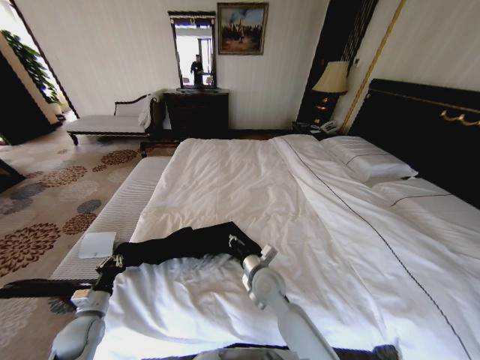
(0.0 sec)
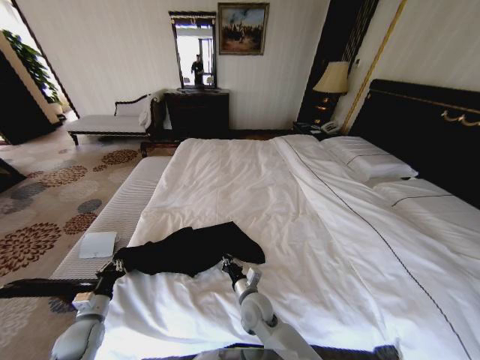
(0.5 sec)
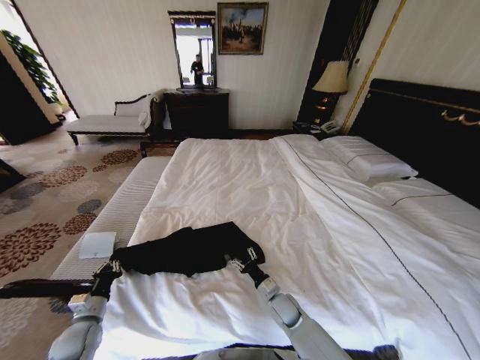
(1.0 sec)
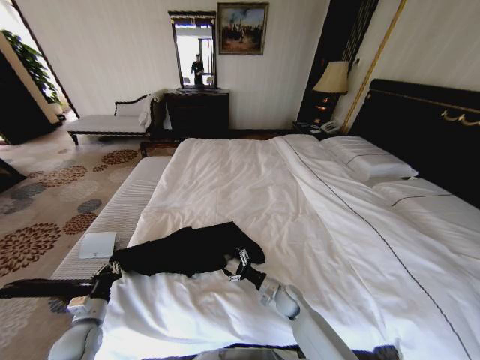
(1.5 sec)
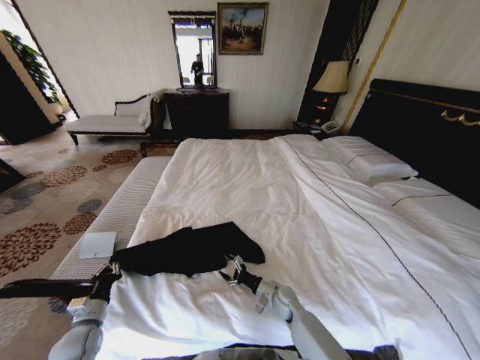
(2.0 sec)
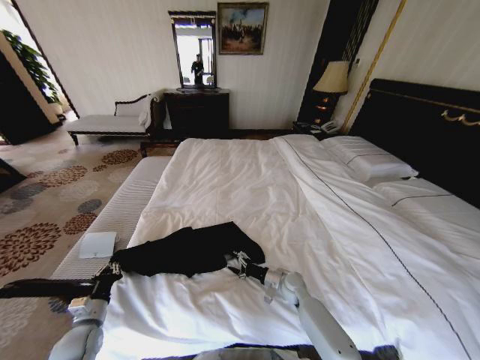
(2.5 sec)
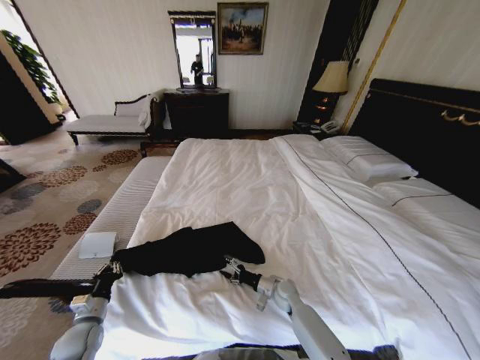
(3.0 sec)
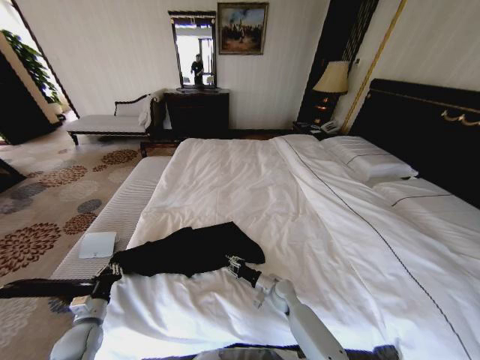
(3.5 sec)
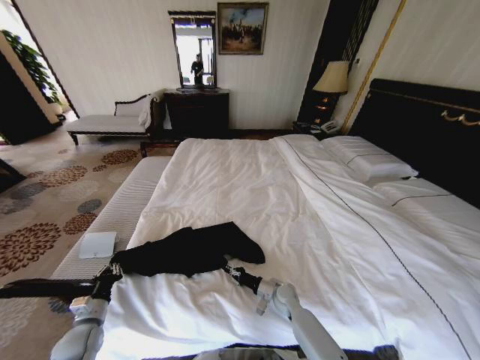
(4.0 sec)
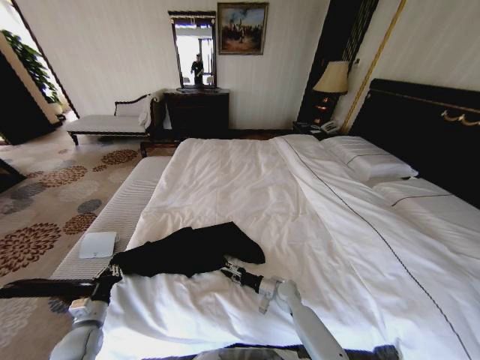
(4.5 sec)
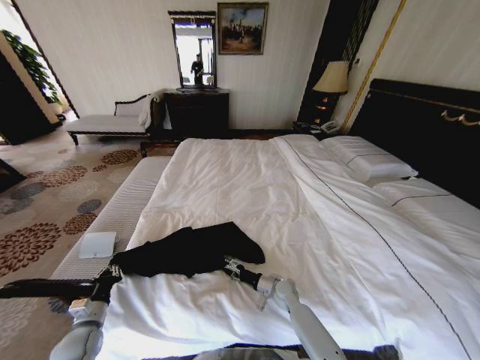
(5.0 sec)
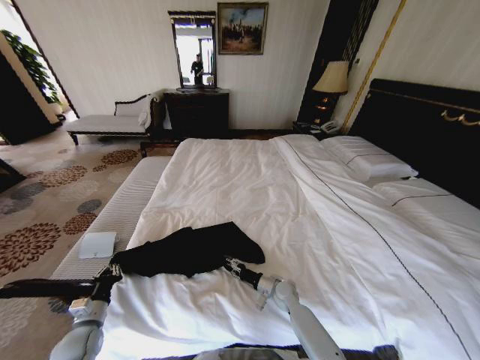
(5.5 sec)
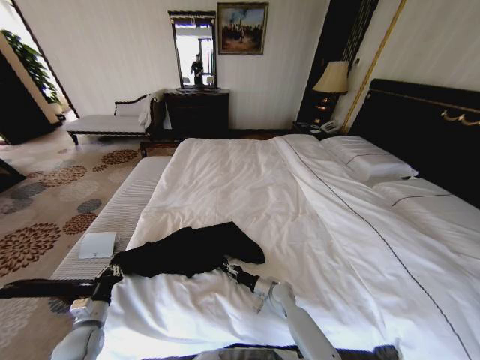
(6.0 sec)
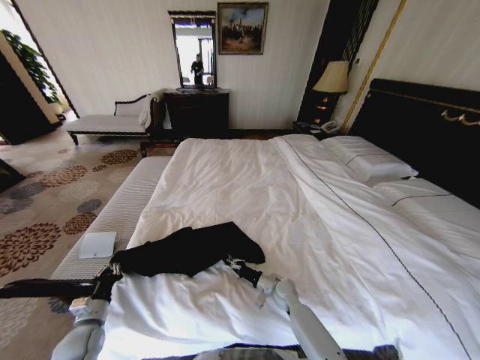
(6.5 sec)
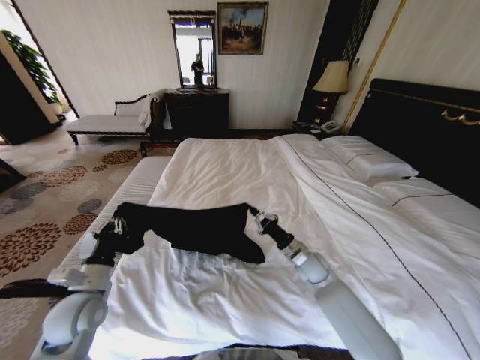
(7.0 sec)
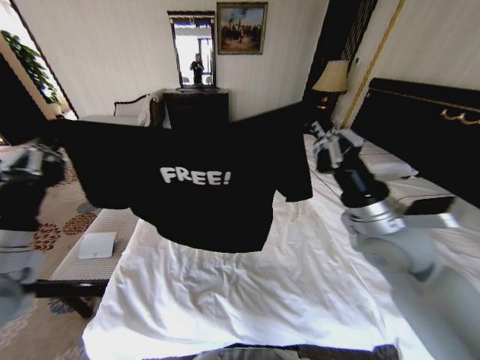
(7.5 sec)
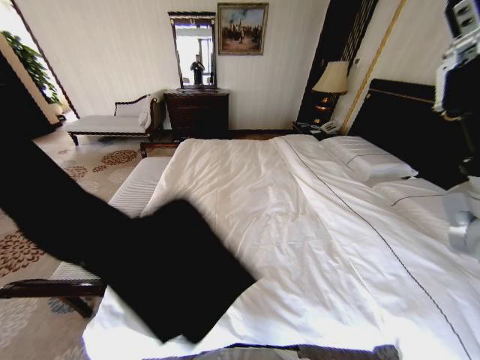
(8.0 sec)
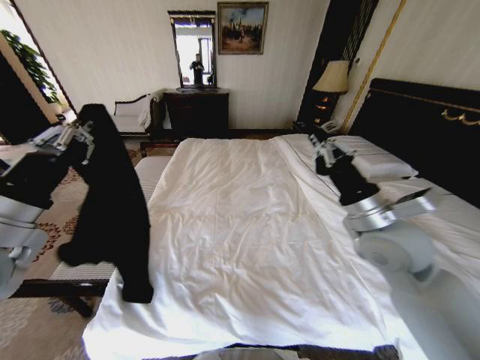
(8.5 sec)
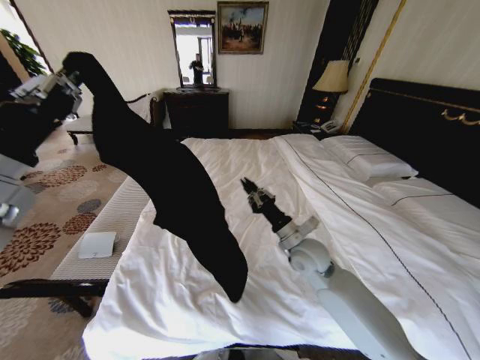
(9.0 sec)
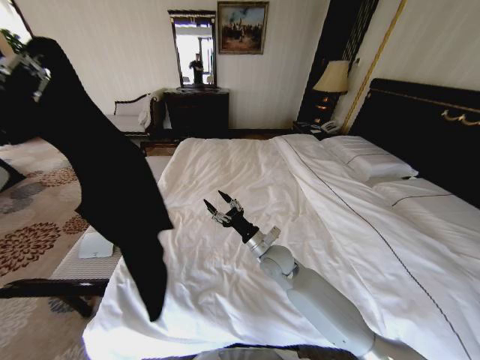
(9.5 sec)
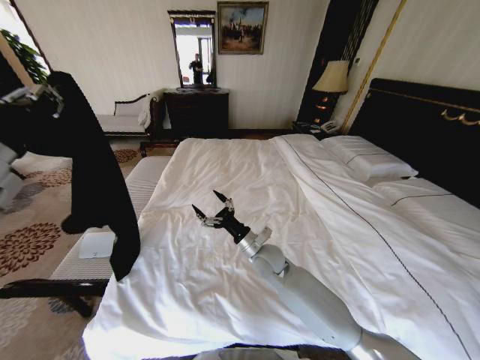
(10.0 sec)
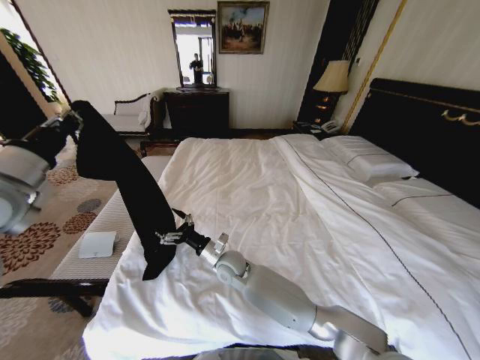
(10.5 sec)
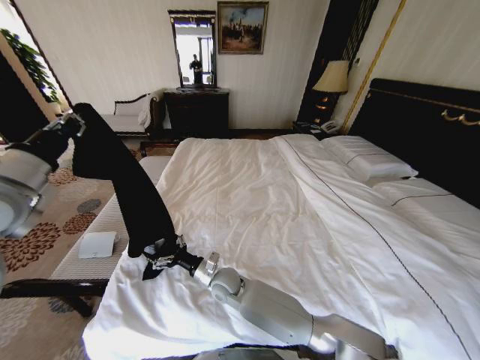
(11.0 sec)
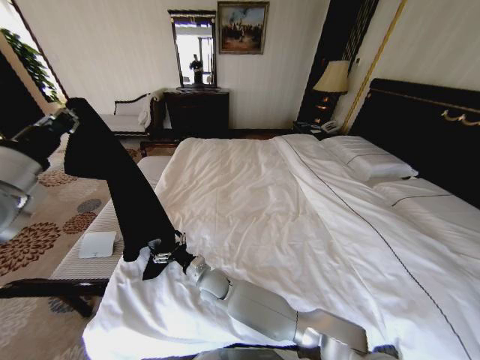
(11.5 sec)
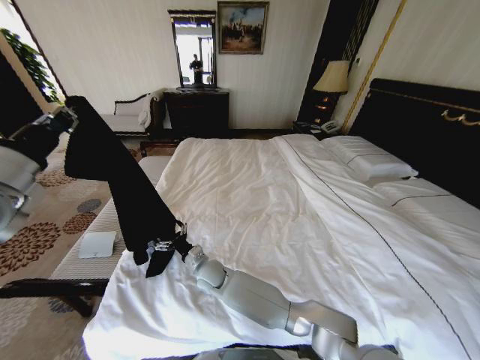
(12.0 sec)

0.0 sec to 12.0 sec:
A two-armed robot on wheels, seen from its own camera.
Task of the whole recording: Fold the clothes on the bed.
0.0 sec to 2.0 sec: The right gripper goes some 20 cm downward and to the right, and opens up.
2.0 sec to 4.0 sec: The right gripper closes its fingers.
4.0 sec to 6.0 sec: The right gripper opens, then closes once more.
6.0 sec to 8.0 sec: Both grippers move upward, some 50 cm.
8.0 sec to 10.0 sec: The left gripper is displaced forward by roughly 15 cm, while the right gripper shifts about 40 cm downward, to the left and forward, and opens.
10.0 sec to 12.0 sec: The right gripper shifts roughly 20 cm to the left and downward.

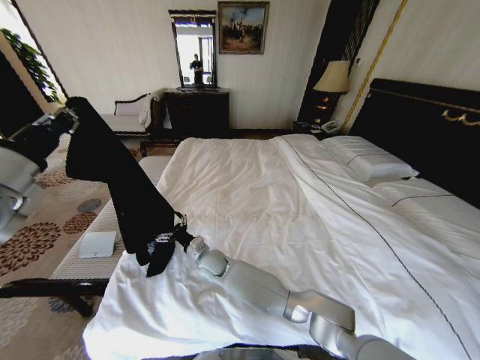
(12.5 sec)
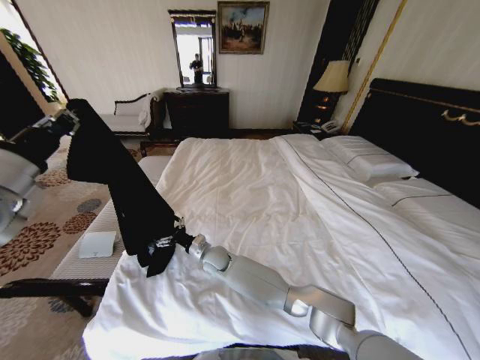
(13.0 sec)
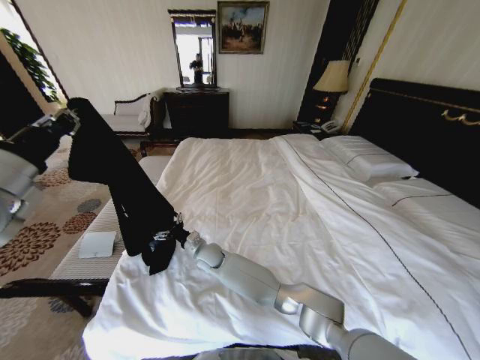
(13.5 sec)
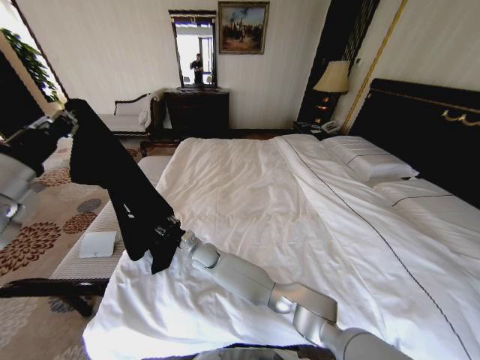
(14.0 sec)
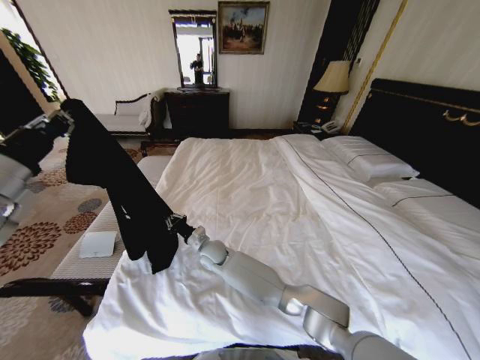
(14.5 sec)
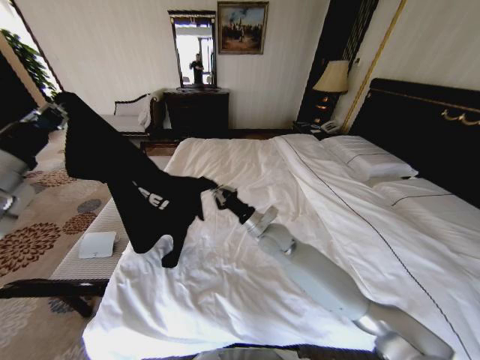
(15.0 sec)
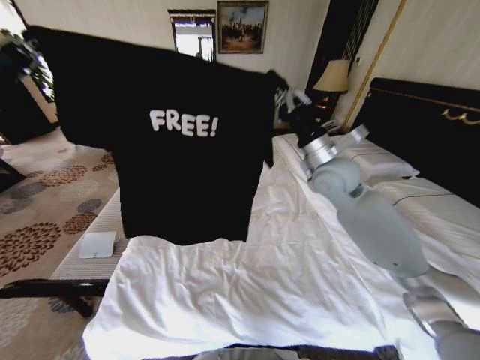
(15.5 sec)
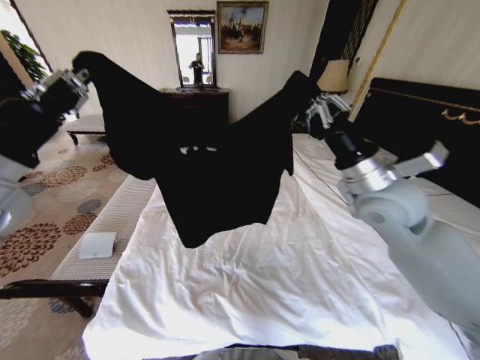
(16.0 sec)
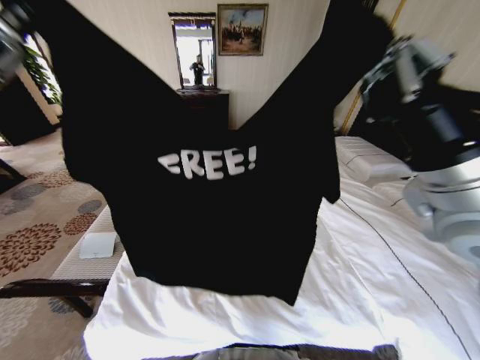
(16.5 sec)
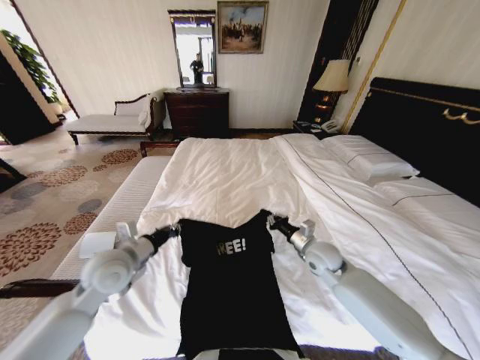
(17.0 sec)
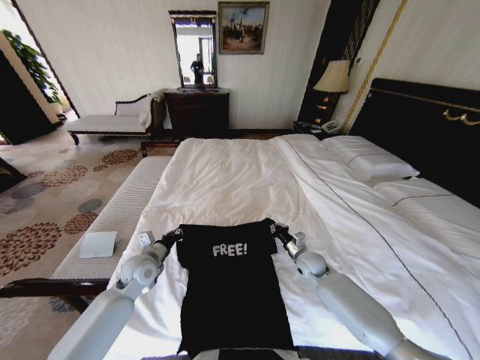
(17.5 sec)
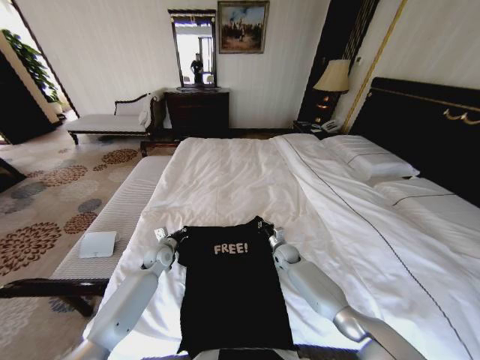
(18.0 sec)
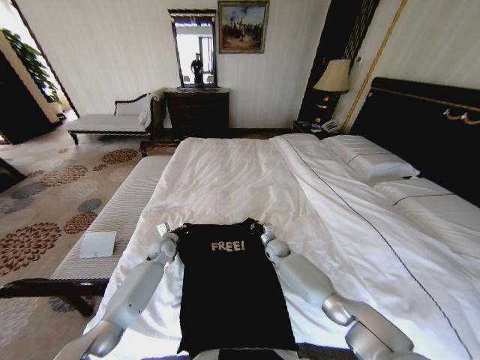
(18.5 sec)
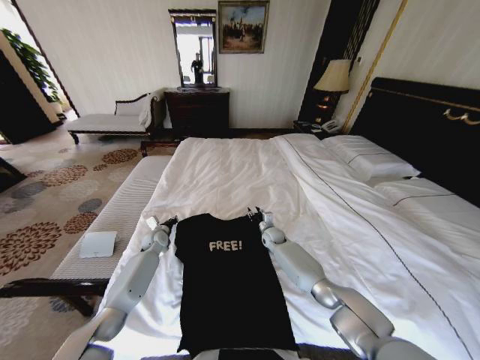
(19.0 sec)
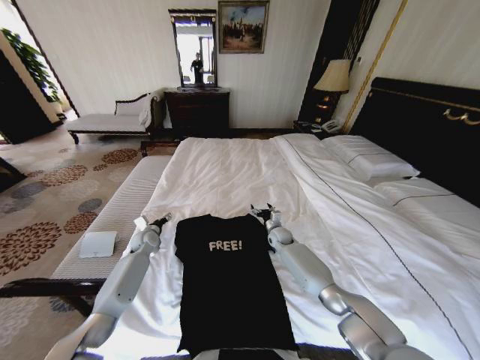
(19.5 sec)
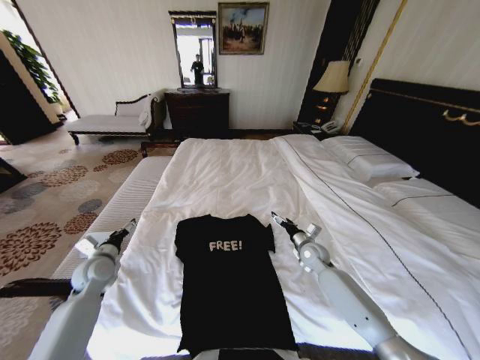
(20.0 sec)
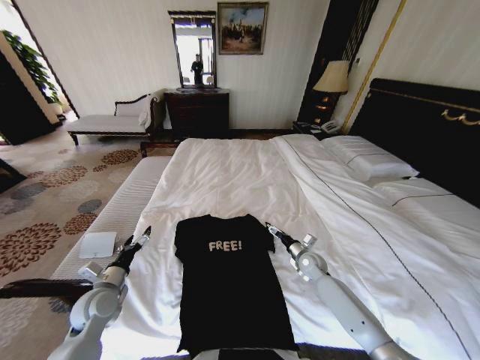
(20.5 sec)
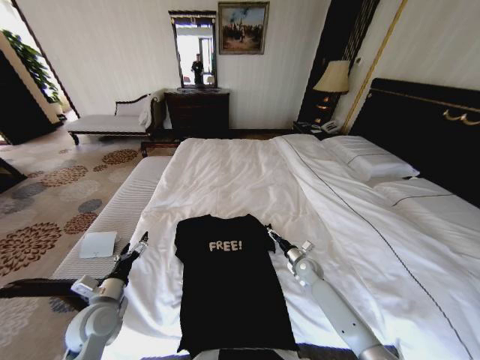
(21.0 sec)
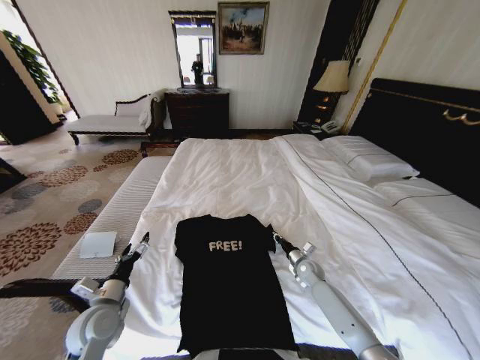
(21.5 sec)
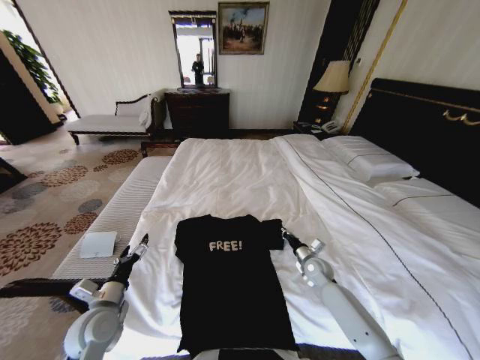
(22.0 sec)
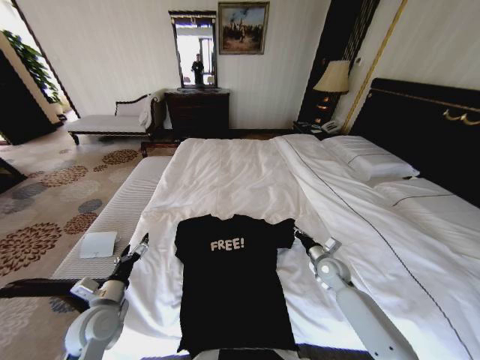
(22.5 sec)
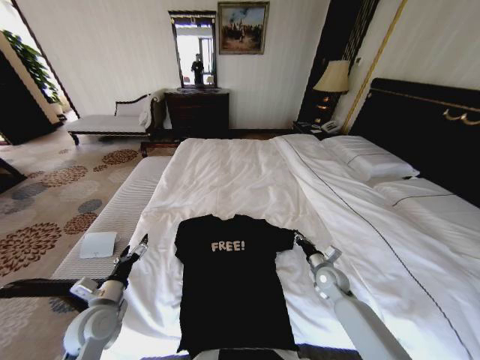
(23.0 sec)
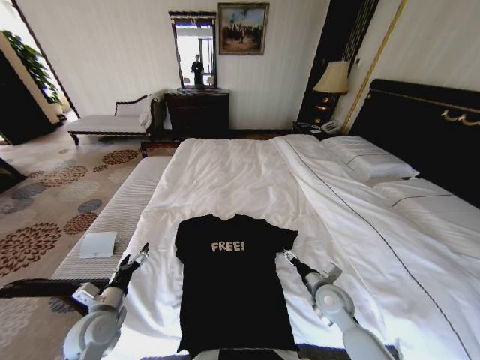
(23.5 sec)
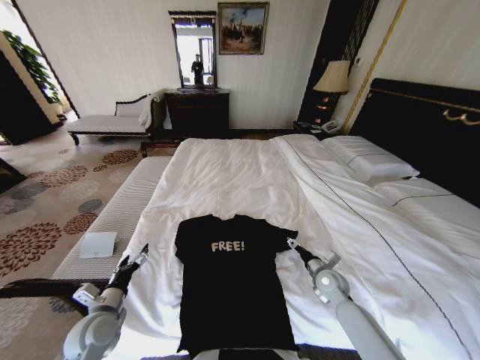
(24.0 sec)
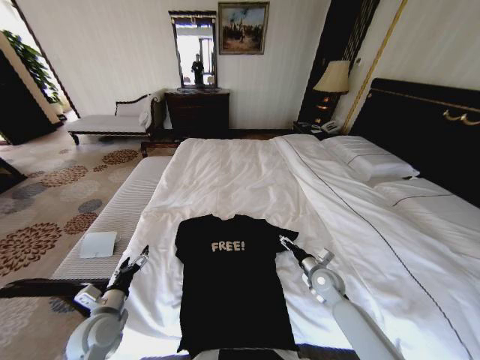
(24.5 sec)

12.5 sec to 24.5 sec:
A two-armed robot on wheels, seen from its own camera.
Task of the whole recording: Fold the clothes on the bed.
12.5 sec to 14.5 sec: The right gripper closes its fingers.
14.5 sec to 16.5 sec: The left gripper is displaced backward, upward and to the right by roughly 15 cm, while the right gripper goes about 60 cm upward, to the right and backward.
16.5 sec to 18.5 sec: Both grippers move downward and forward, some 60 cm.
18.5 sec to 20.5 sec: The right gripper shifts about 15 cm to the right and backward, and opens; the left gripper moves backward and to the left, about 25 cm, and opens up.
20.5 sec to 22.5 sec: The right gripper moves about 5 cm, and closes up, while the left gripper changes place by approximately 5 cm.
22.5 sec to 24.5 sec: The right gripper opens its fingers.

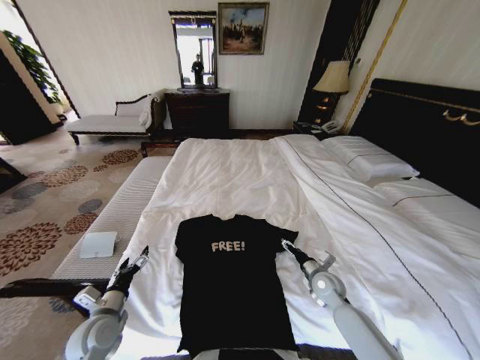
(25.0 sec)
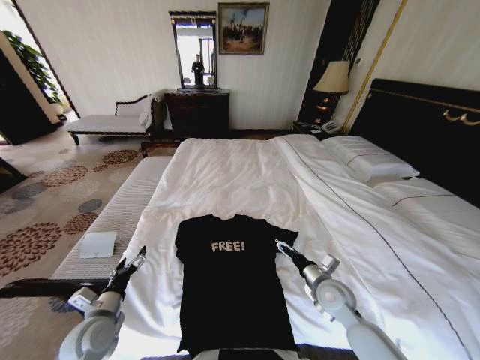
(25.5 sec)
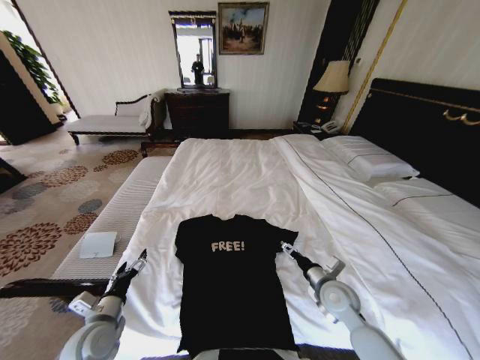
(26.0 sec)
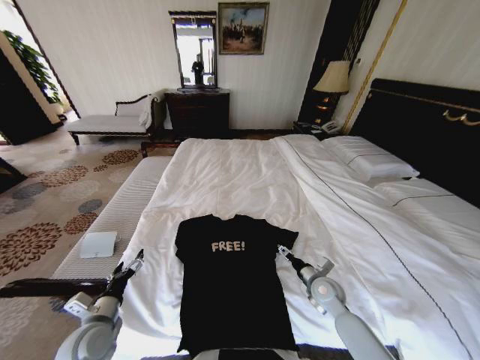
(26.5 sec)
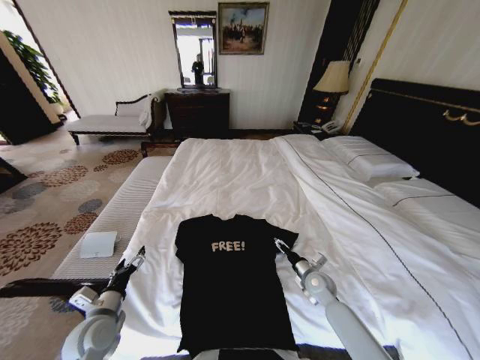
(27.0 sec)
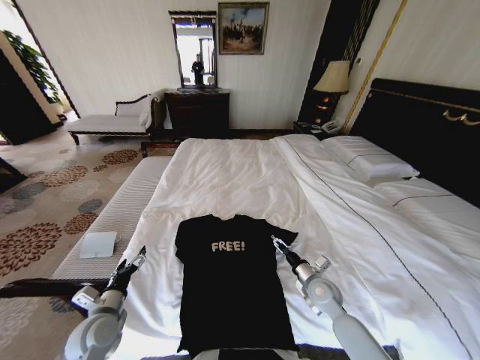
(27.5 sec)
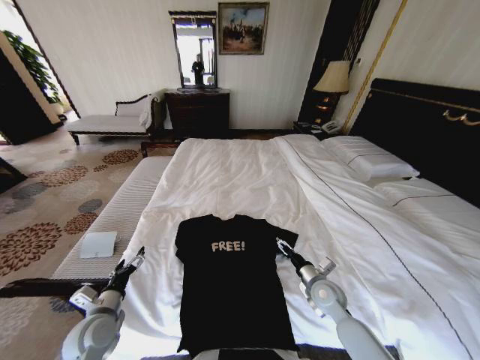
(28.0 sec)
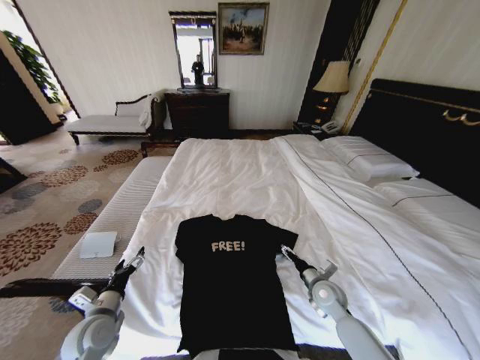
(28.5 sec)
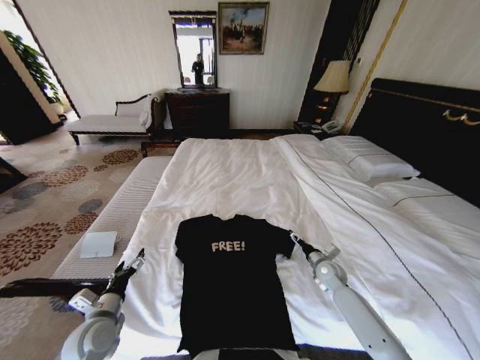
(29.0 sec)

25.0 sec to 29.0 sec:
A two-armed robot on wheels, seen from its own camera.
Task of the whole recording: Fold the clothes on the bed.
25.0 sec to 27.0 sec: The right gripper travels upward and back again, some 5 cm each way.
27.0 sec to 29.0 sec: The right gripper moves to the right, about 5 cm.
